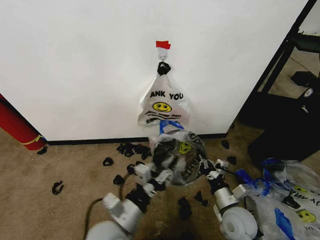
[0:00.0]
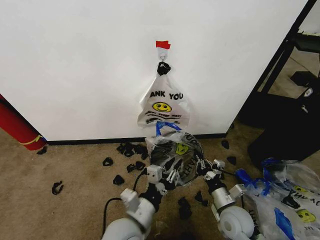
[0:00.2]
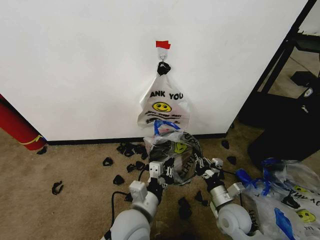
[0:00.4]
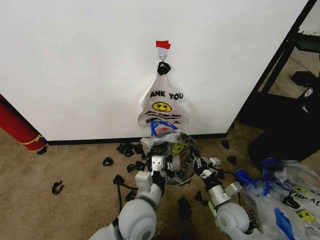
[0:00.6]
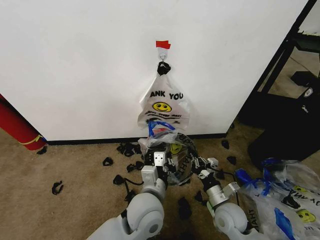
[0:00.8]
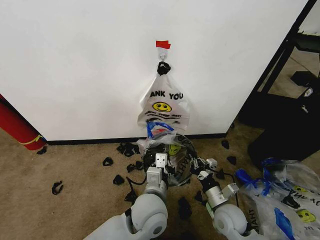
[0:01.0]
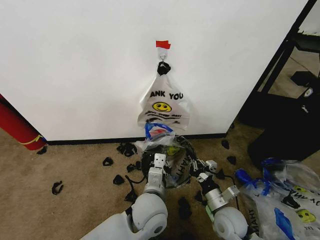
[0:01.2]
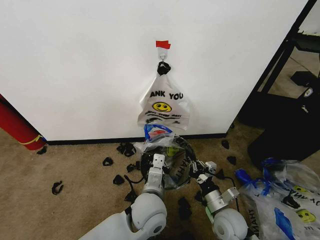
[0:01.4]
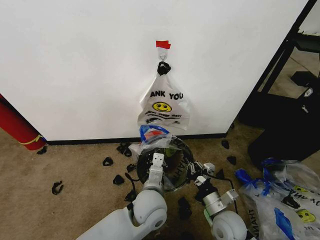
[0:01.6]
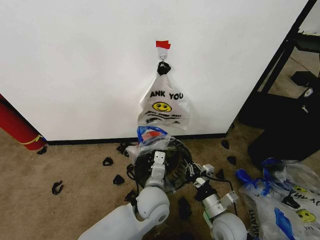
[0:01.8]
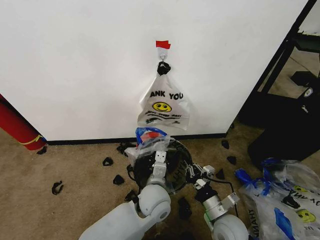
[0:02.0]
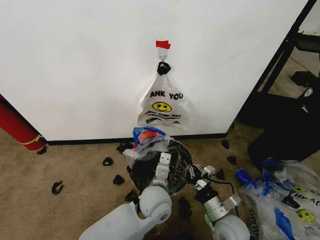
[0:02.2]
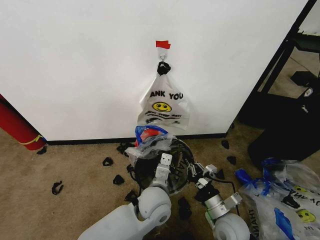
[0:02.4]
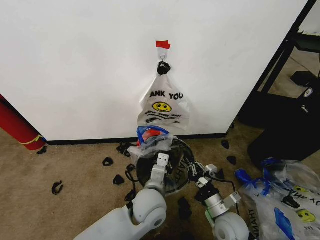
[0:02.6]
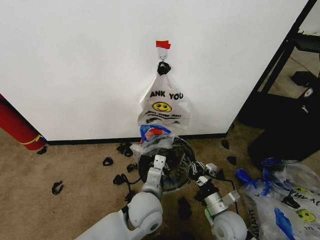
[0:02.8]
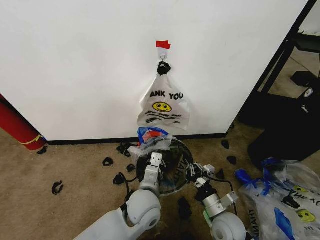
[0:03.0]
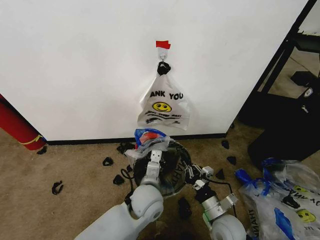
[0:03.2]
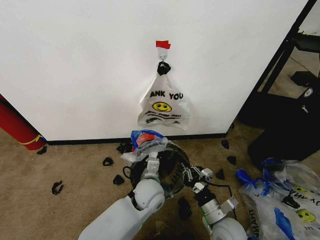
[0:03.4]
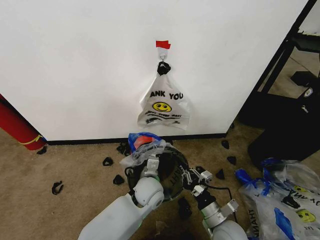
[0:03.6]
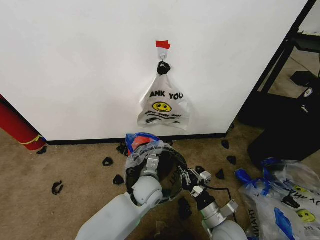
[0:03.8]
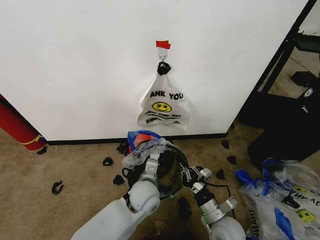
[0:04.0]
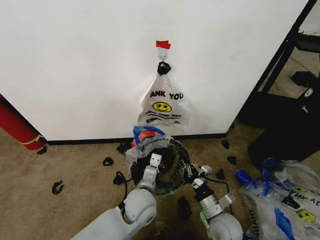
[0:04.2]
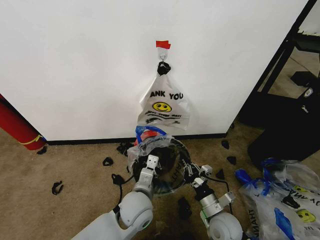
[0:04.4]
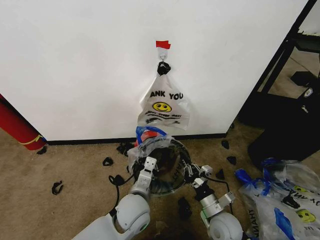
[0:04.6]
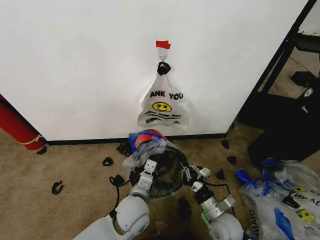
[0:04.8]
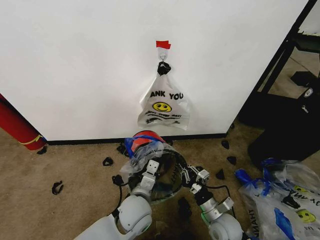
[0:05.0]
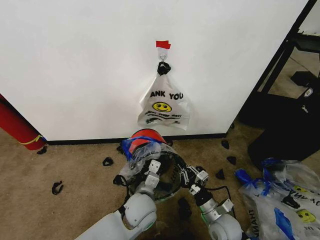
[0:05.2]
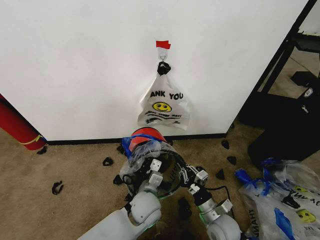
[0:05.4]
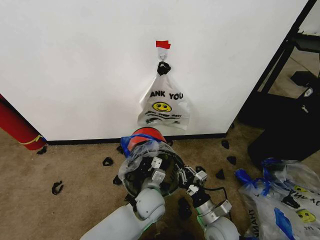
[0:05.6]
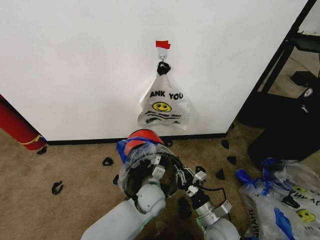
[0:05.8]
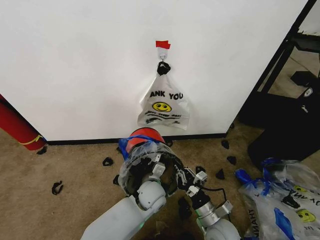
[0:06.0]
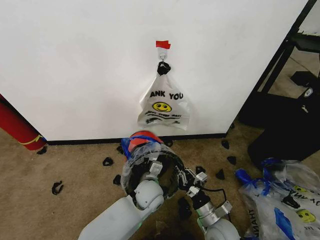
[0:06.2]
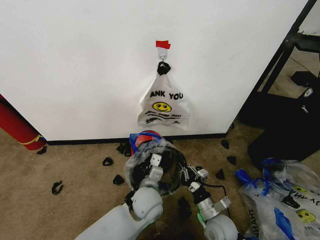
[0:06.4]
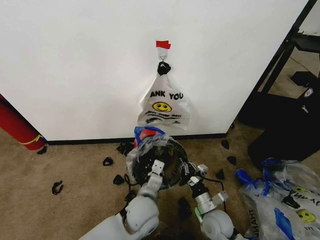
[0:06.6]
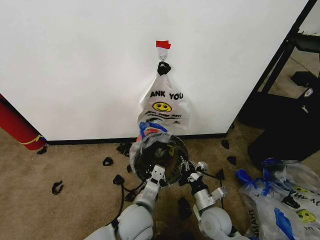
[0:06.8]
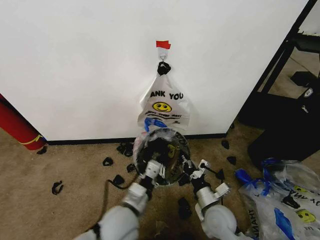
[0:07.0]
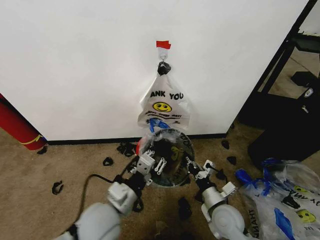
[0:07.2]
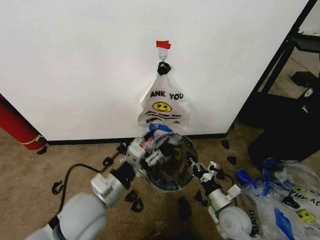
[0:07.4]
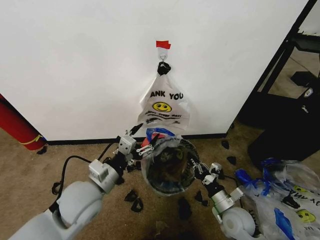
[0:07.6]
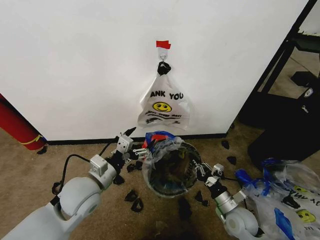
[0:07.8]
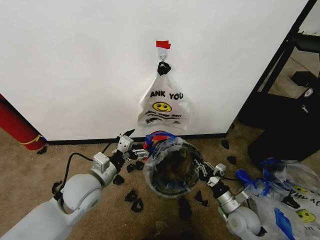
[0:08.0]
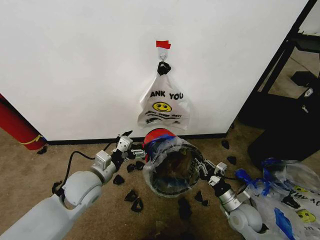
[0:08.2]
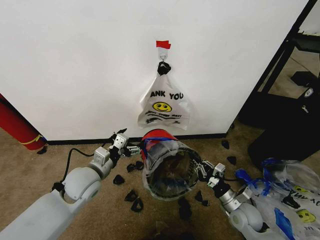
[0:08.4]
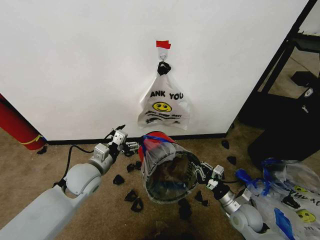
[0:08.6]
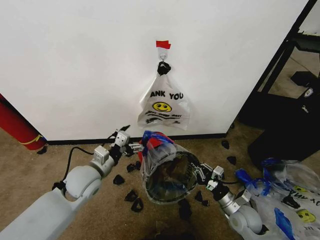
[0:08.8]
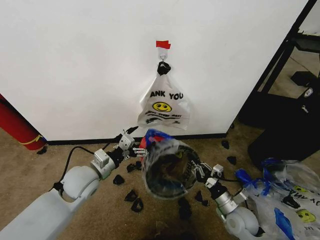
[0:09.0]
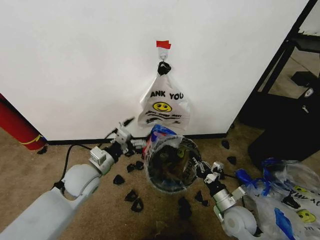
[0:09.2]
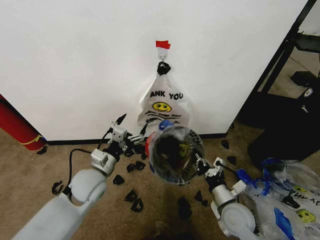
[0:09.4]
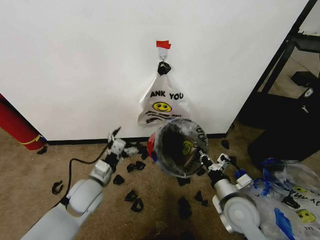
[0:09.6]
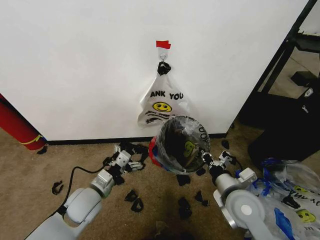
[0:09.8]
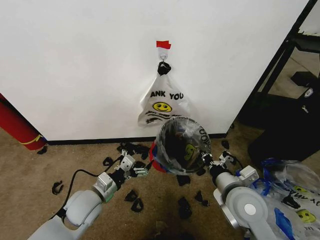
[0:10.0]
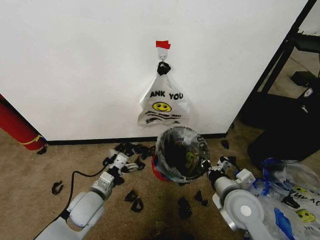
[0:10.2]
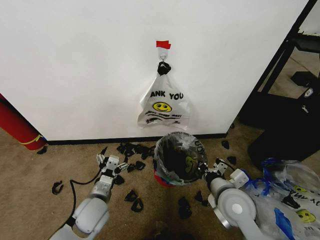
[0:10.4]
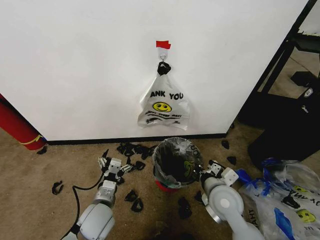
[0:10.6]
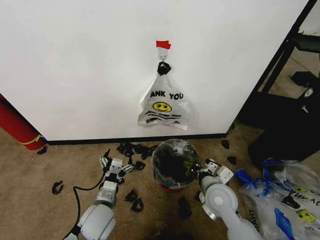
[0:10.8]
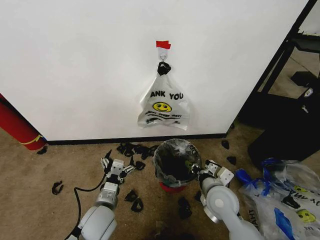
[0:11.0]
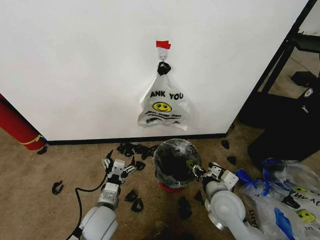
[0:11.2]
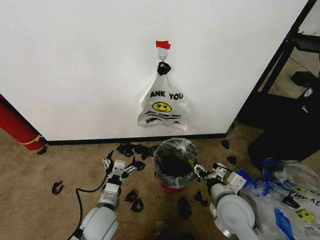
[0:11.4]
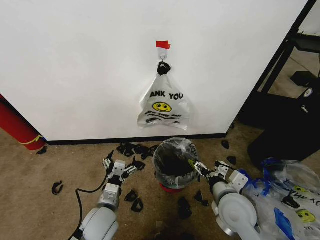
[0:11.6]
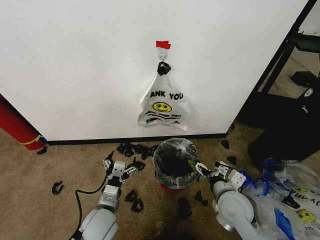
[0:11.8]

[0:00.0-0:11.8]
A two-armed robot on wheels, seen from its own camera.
Task of the whole recording: Pick up the garbage bag from the wall and place it over the trash bin.
0:00.0 to 0:01.4: The left gripper travels to the right and forward by some 10 cm, and closes its fingers.
0:01.4 to 0:03.0: The grippers move only a little.
0:04.4 to 0:06.0: The left gripper goes some 10 cm forward and downward.
0:06.0 to 0:07.4: The left gripper goes roughly 25 cm upward, to the left and backward, and opens up. The right gripper shifts roughly 5 cm to the right.
0:07.4 to 0:08.8: The left gripper heads forward, to the left and downward, covering some 15 cm, and opens up. Meanwhile the right gripper travels to the right by about 5 cm.
0:08.8 to 0:10.4: The right gripper is displaced upward and to the left by about 15 cm. The left gripper heads downward and backward, covering about 10 cm.
0:10.4 to 0:11.8: The right gripper opens its fingers.

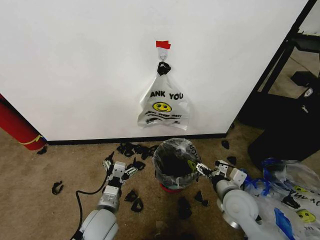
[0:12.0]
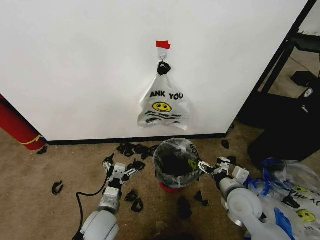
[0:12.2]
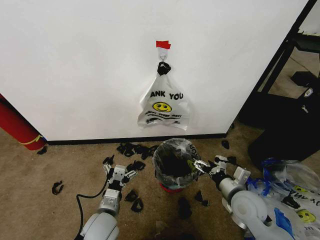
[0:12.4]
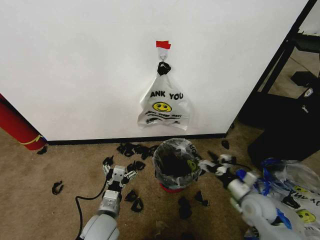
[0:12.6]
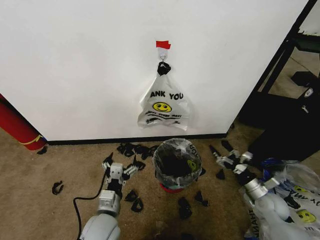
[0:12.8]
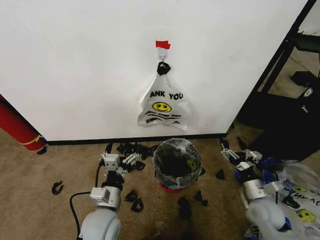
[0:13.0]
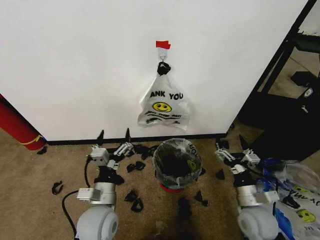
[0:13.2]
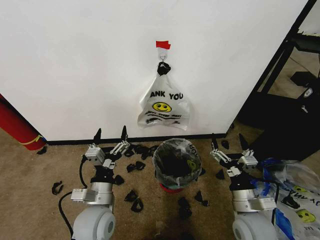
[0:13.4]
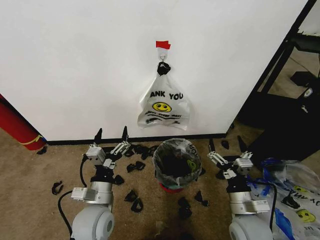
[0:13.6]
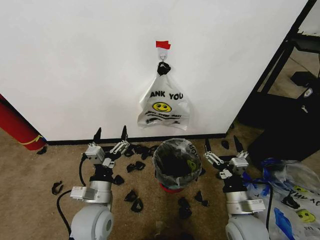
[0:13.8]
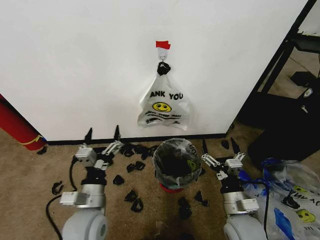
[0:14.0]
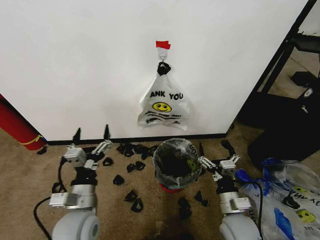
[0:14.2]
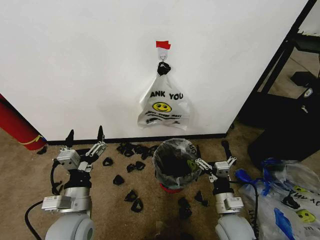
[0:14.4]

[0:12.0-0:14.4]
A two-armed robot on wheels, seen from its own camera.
Task of the whole recording: Pick up the garbage bag from the wall and place it over the trash bin.
0:12.0 to 0:13.2: The left gripper is displaced upward by approximately 5 cm. The right gripper travels to the right and back again, about 15 cm each way.
0:13.2 to 0:14.4: The left gripper moves about 5 cm. Meanwhile the right gripper travels to the left by roughly 5 cm.
